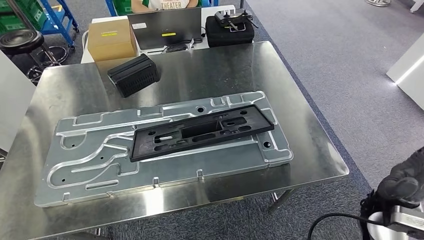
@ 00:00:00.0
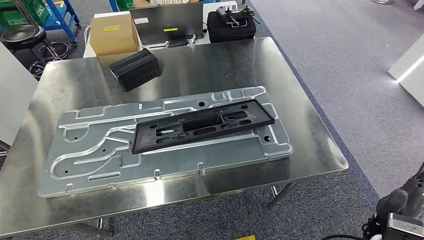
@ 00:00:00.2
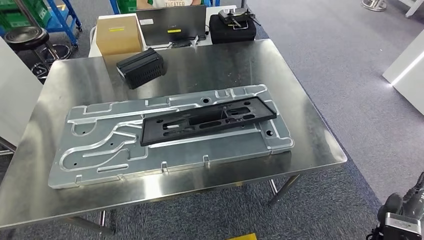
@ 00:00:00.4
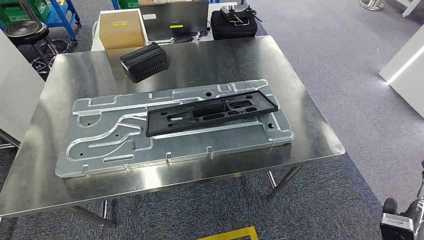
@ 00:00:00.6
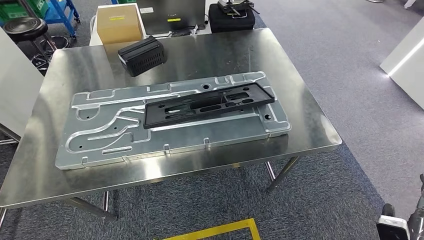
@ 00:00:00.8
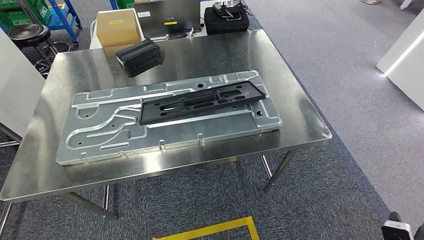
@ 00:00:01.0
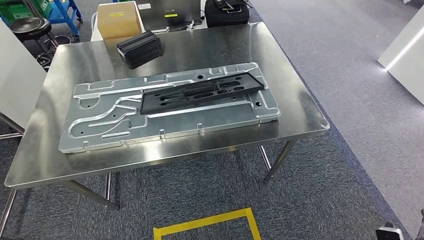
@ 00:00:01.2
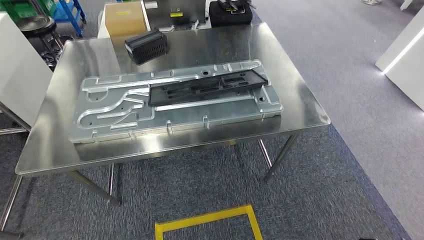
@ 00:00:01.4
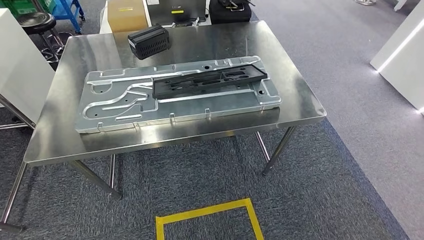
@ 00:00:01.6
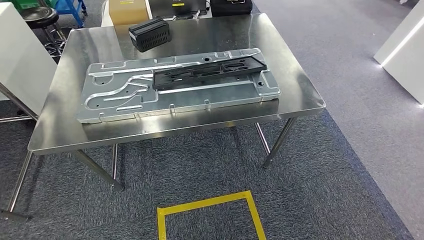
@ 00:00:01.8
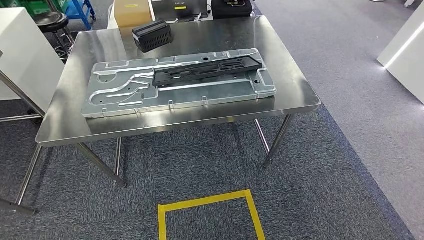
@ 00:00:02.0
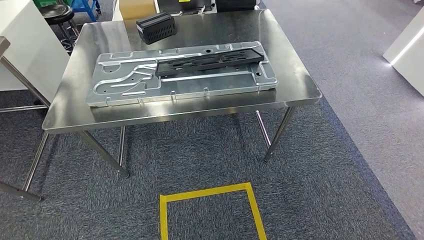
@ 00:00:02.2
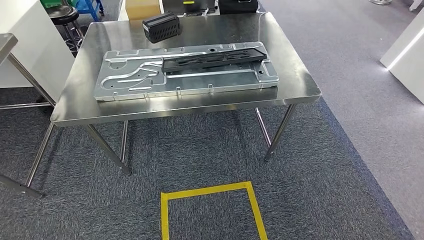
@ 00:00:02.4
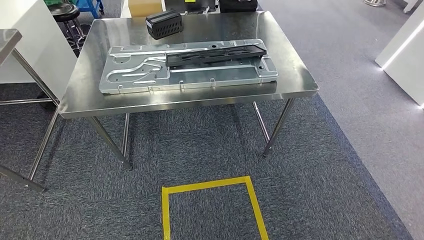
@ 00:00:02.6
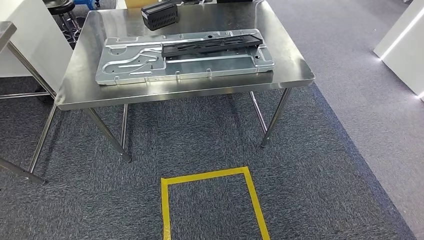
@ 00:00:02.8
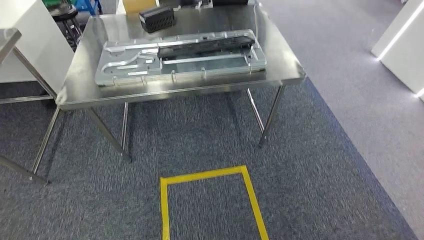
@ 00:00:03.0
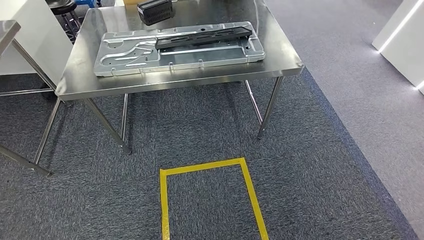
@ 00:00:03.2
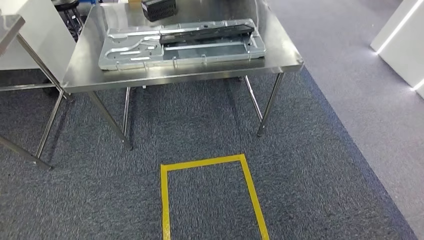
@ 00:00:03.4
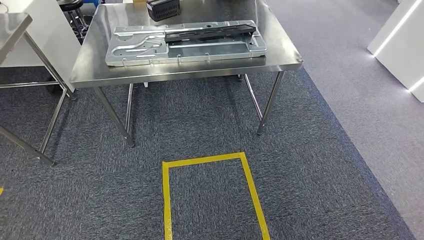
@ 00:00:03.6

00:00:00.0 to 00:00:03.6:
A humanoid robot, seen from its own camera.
Step, 00:00:00.4 to 00:00:03.6: Move to the initial position of the shelf.
